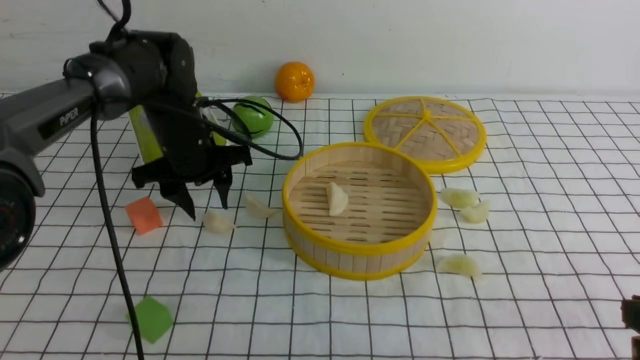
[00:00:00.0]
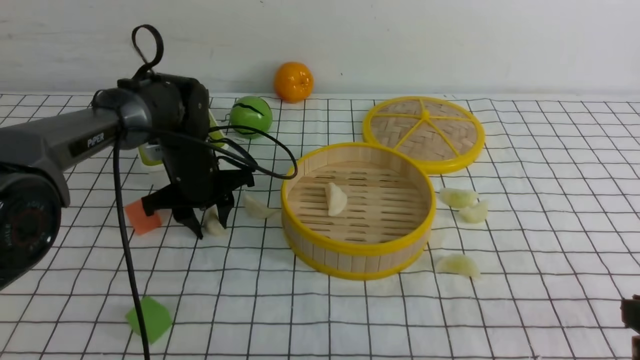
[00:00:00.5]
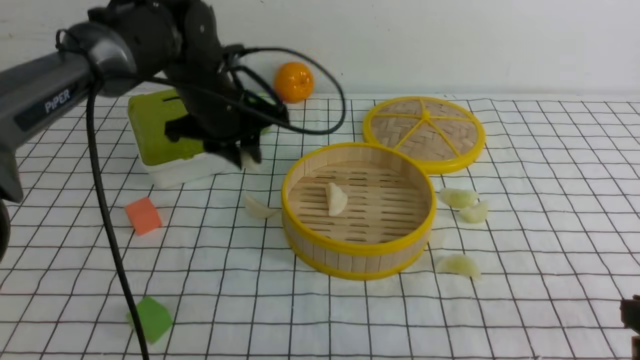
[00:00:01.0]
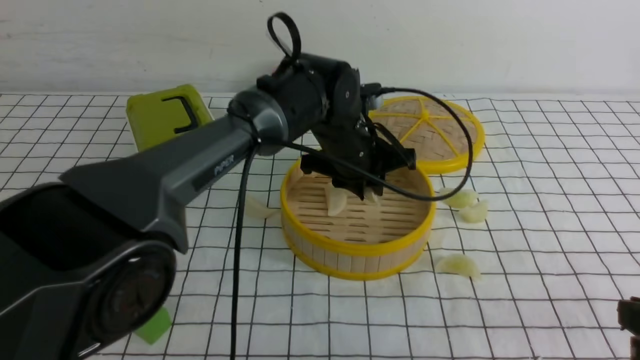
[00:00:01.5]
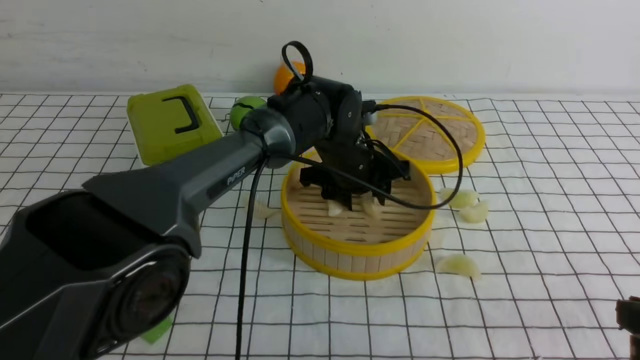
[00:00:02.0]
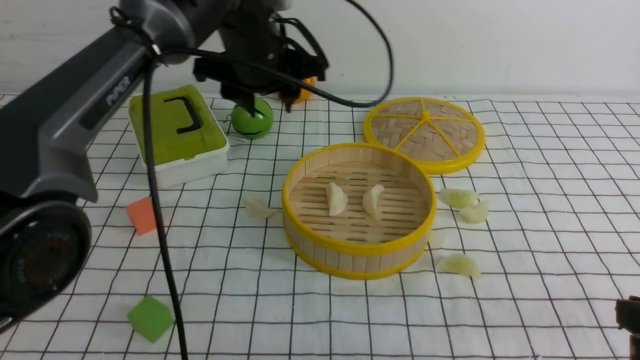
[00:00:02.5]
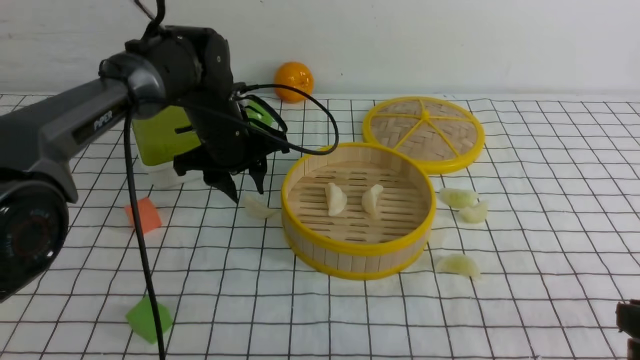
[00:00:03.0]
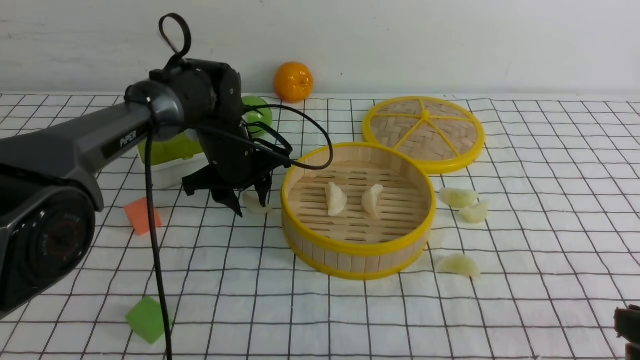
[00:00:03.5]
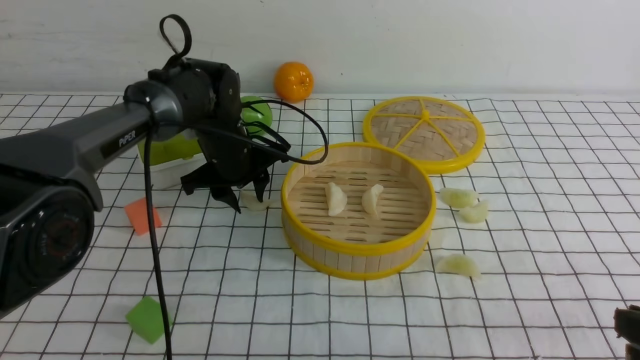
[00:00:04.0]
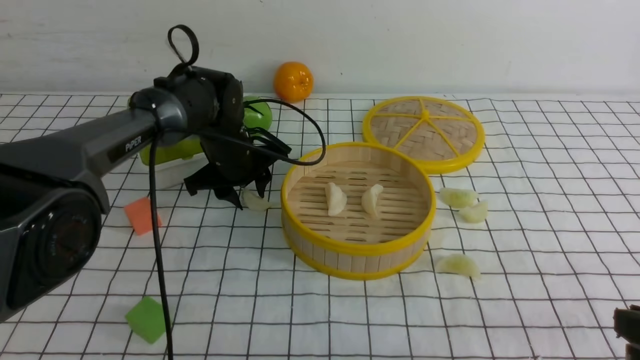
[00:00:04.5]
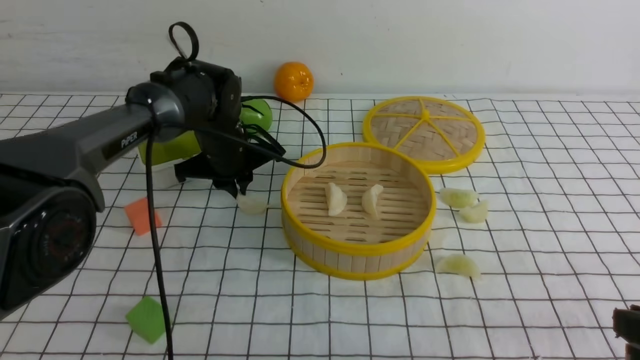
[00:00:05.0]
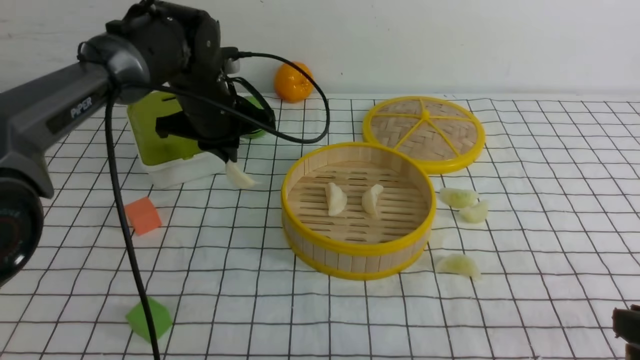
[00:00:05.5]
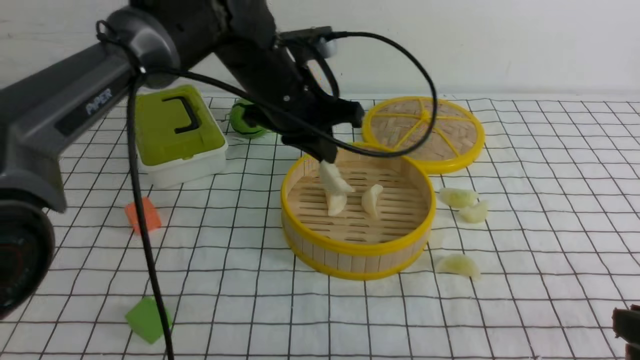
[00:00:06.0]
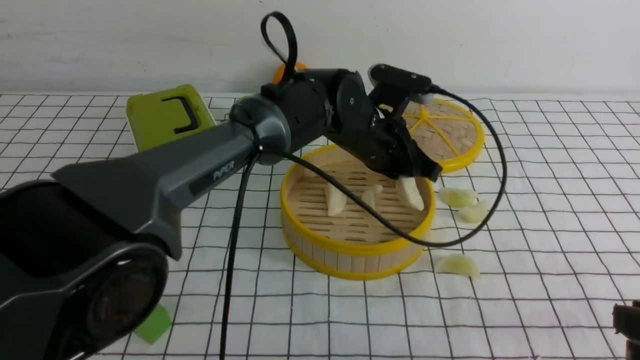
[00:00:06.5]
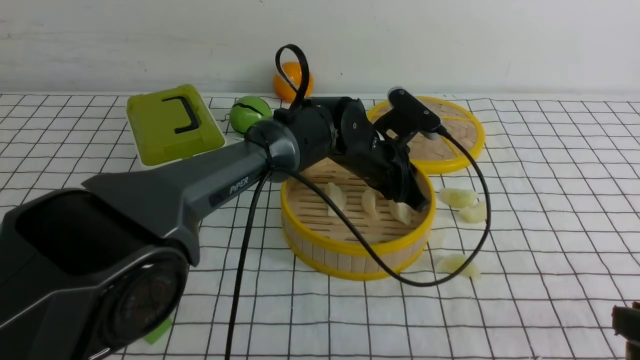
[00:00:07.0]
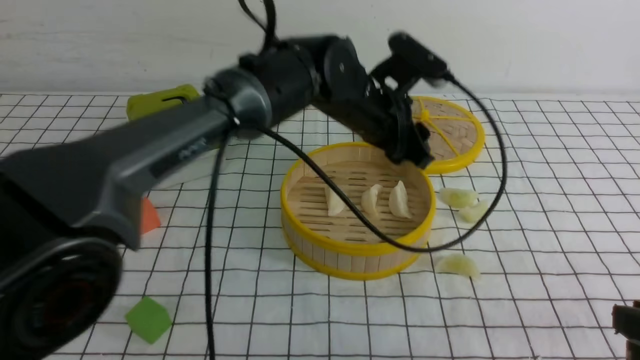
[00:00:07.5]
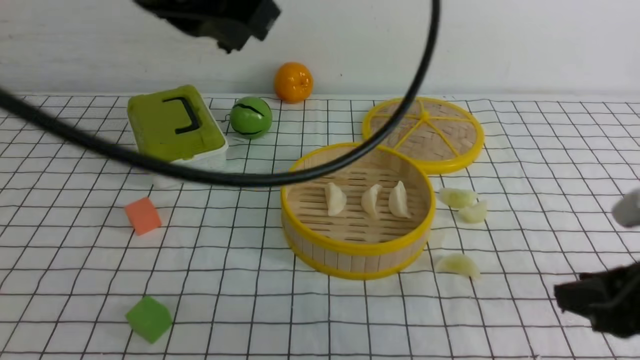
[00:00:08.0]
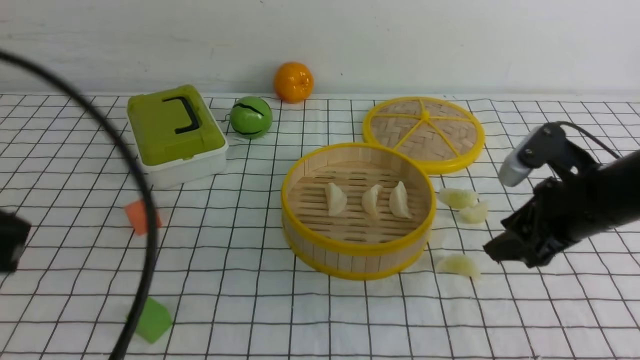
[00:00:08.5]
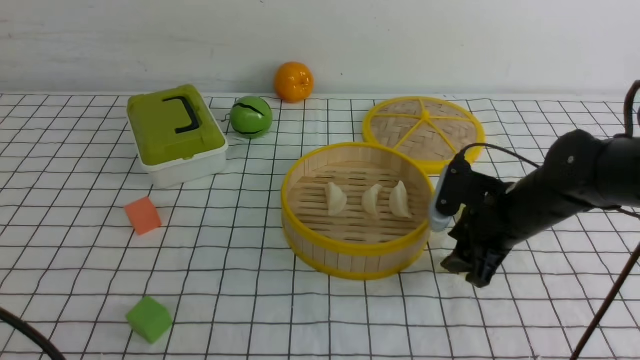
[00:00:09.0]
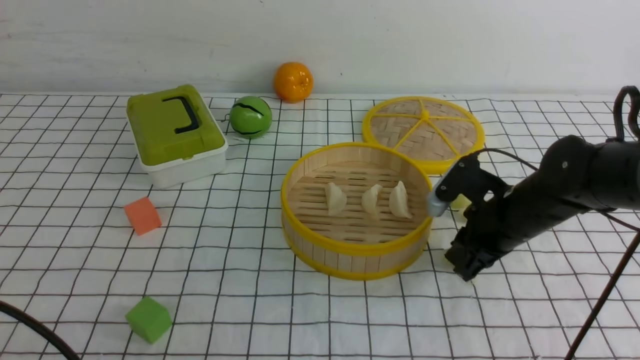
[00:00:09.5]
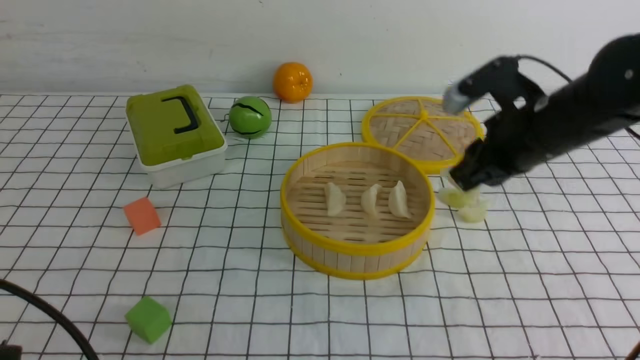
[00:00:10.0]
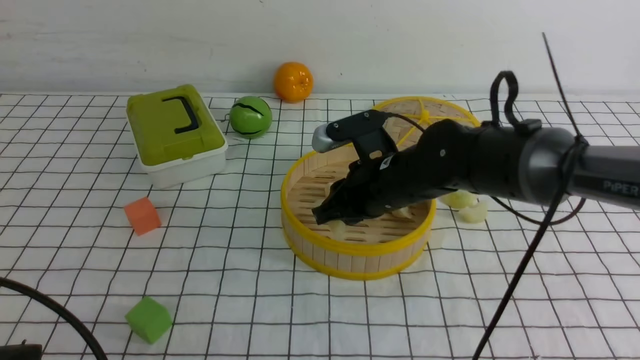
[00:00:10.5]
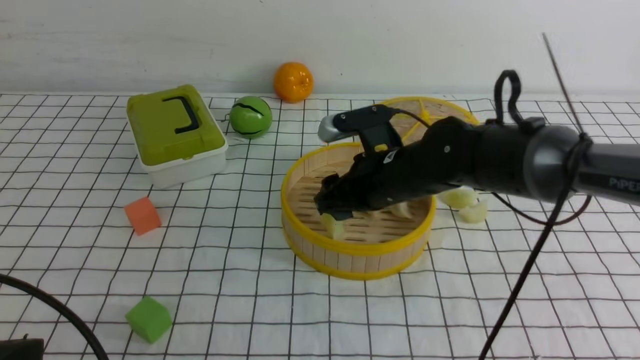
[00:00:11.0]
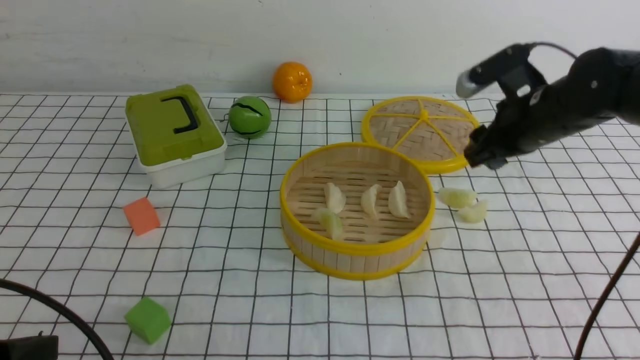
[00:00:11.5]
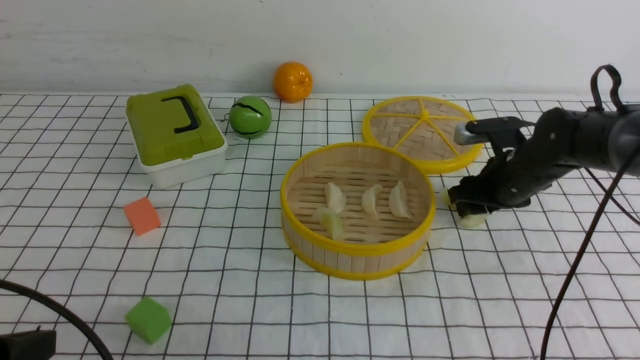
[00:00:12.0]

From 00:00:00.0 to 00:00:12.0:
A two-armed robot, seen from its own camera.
Task of the whole recording: put the dumplings into the steamer on the table with the white tablecloth.
Step, from 00:00:01.0 to 00:00:02.0: use the left arm to put the dumpling into the steamer.
Step, from 00:00:02.5 to 00:00:05.0: use the left arm to grab a dumpling.
Step, from 00:00:05.5 to 00:00:07.5: use the left arm to put the dumpling into the steamer.
Step, from 00:00:08.0 to 00:00:09.5: use the right arm to grab a dumpling.
Step, from 00:00:10.0 to 00:00:11.0: use the right arm to put the dumpling into the steamer.
From 00:00:00.0 to 00:00:02.0: The left gripper travels to the right by roughly 20 cm, and closes, then reopens.
From 00:00:02.0 to 00:00:04.0: The left gripper shifts approximately 15 cm to the left.
From 00:00:04.0 to 00:00:06.0: The left gripper moves upward, to the right and backward, approximately 15 cm, and closes its fingers.
From 00:00:06.0 to 00:00:08.0: The left gripper is displaced upward, backward and to the left by some 25 cm, and opens, then closes again. The right gripper heads forward, covering about 5 cm.
From 00:00:08.0 to 00:00:10.0: The left gripper moves downward, backward and to the left, about 30 cm. The right gripper goes some 20 cm forward and to the left.
From 00:00:10.0 to 00:00:12.0: The right gripper travels downward, forward and to the right by some 15 cm, and opens up.

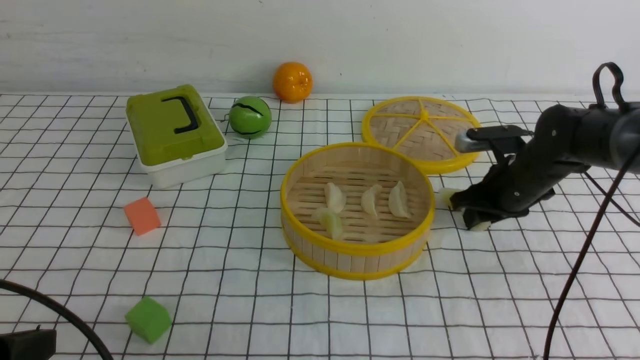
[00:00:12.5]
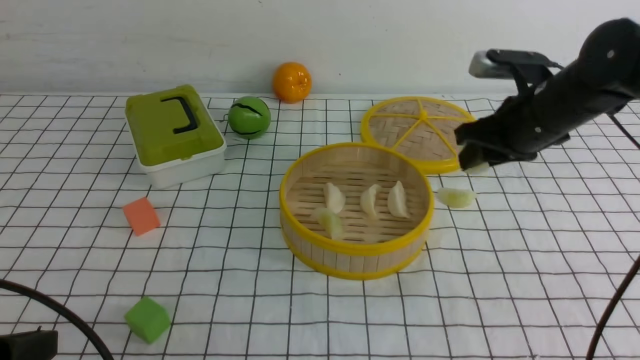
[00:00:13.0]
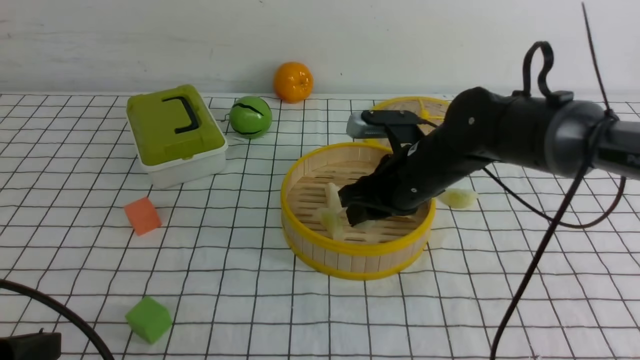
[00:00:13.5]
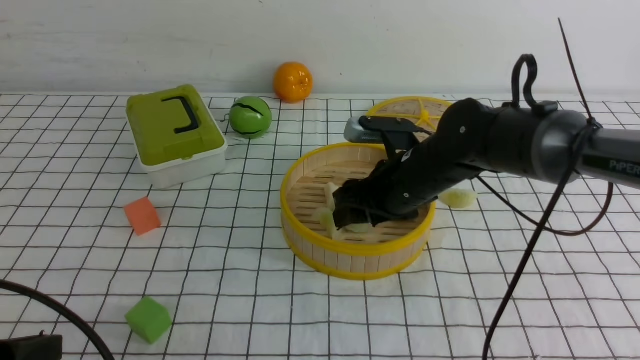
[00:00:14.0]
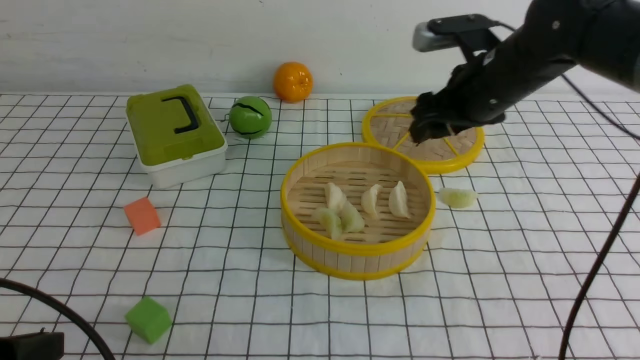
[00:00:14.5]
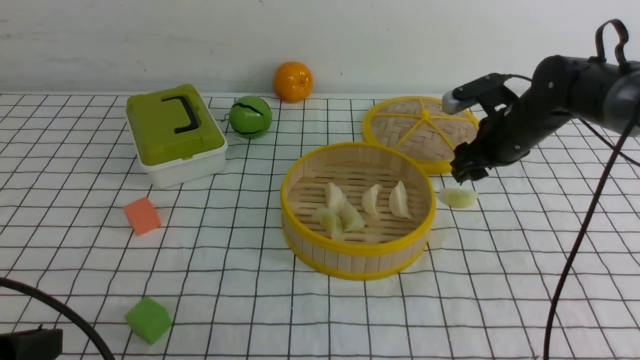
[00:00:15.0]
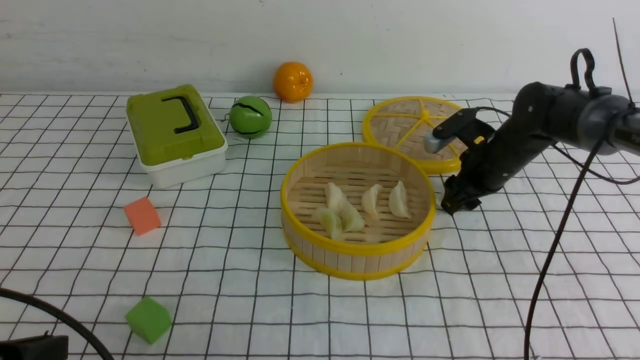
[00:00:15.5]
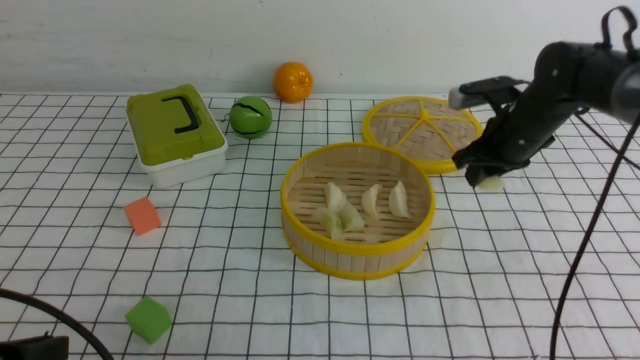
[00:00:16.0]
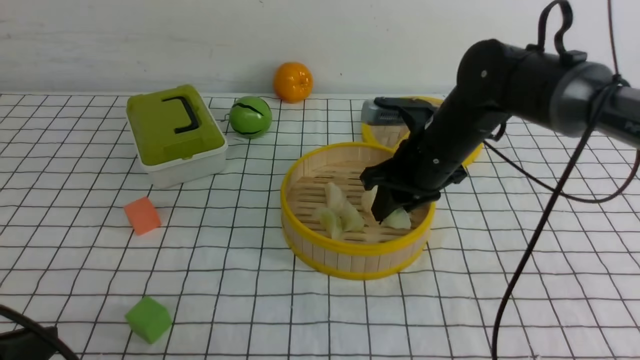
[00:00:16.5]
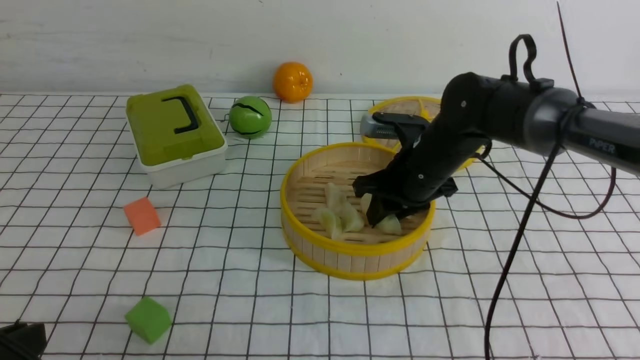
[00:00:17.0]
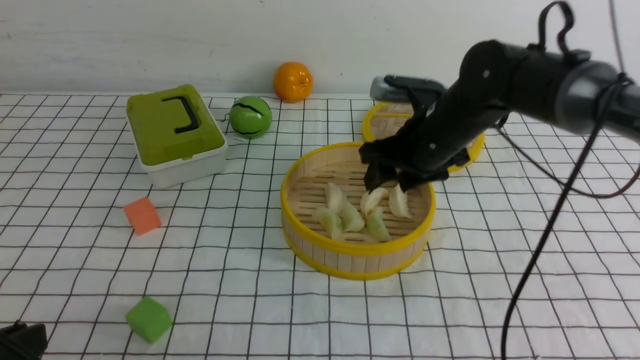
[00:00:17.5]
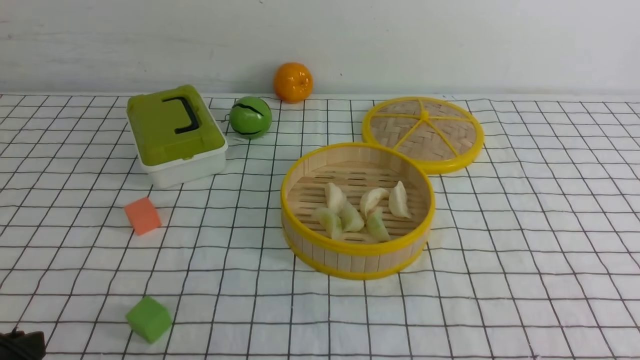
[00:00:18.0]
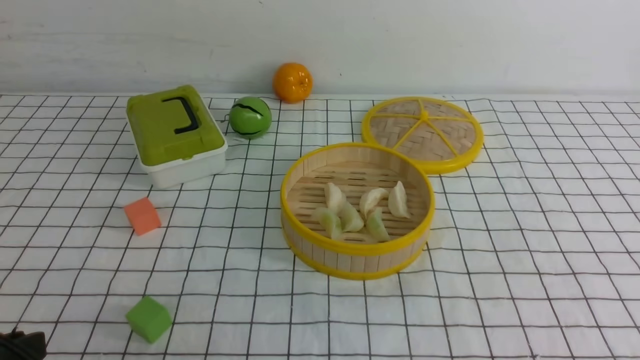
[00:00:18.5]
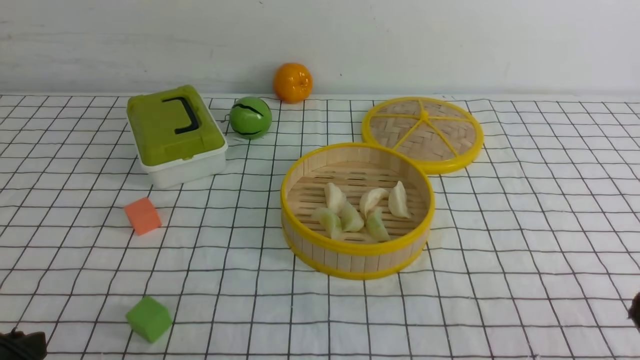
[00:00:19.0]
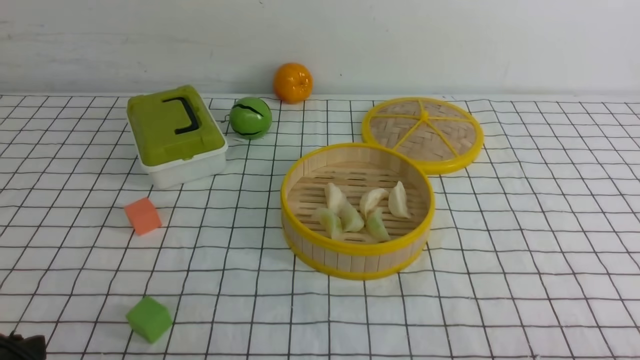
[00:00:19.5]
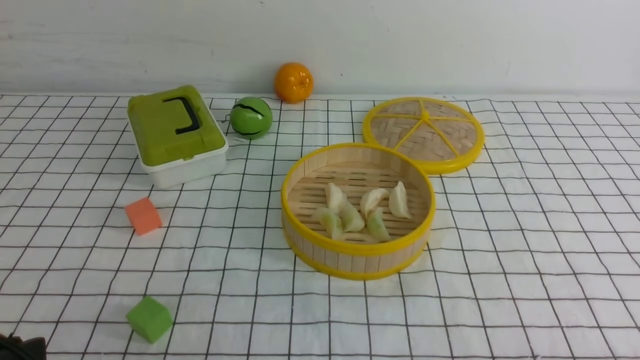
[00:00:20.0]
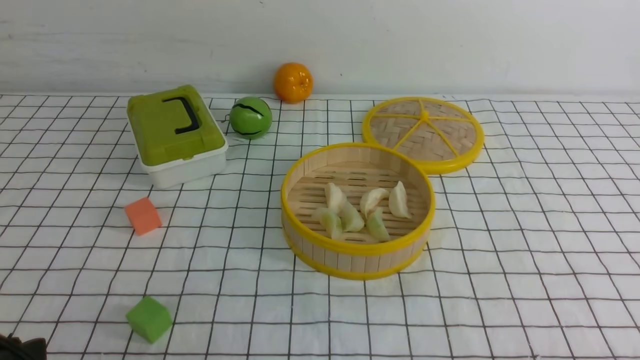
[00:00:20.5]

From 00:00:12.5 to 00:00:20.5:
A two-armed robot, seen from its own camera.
Task of the whole recording: put the dumplings into the steamer on the table with the white tablecloth.
Step, from 00:00:13.5 to 00:00:14.0: use the right arm to put the dumpling into the steamer.
Step, from 00:00:14.5 to 00:00:16.0: use the right arm to grab a dumpling.
Step, from 00:00:16.5 to 00:00:17.5: use the right arm to put the dumpling into the steamer.
From 00:00:12.5 to 00:00:14.5: The right gripper shifts some 10 cm upward and to the left, and opens its fingers.
From 00:00:14.5 to 00:00:16.5: The right gripper closes up.
From 00:00:16.5 to 00:00:18.5: The right gripper shifts roughly 40 cm backward, to the right and upward, and closes.
